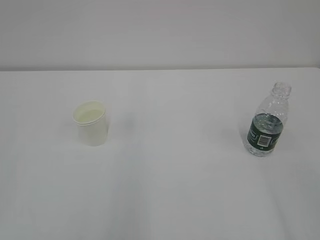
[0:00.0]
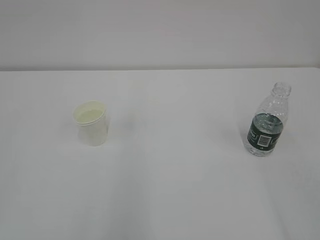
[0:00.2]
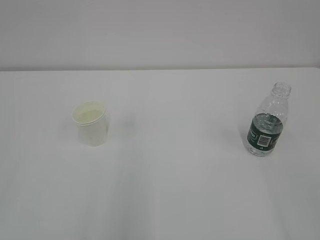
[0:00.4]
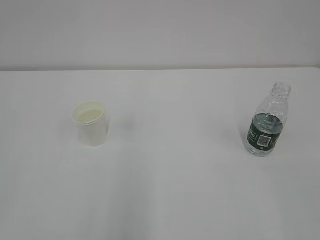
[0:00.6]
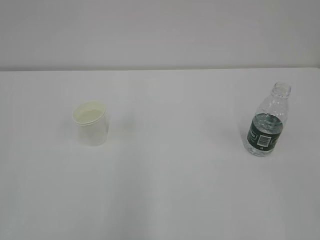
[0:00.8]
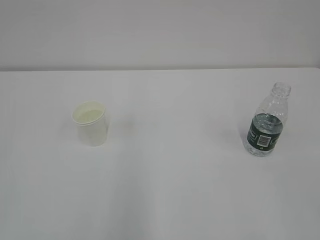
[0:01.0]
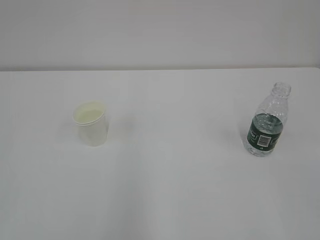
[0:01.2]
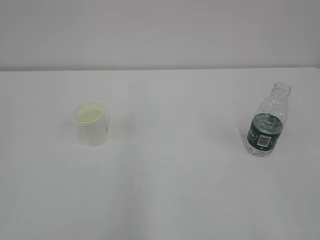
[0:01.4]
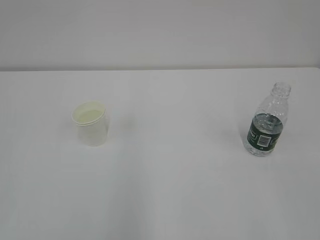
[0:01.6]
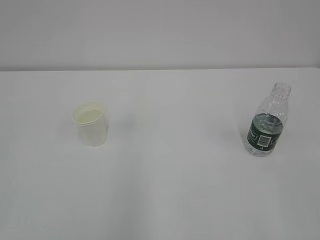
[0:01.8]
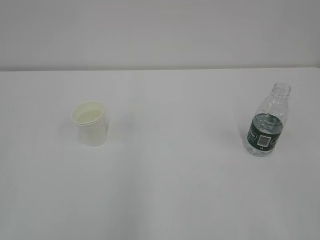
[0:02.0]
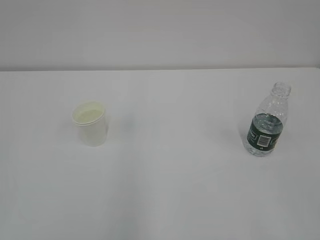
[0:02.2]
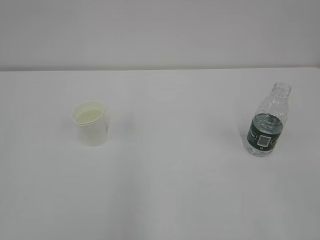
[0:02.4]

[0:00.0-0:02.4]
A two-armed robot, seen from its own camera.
0:01.2 to 0:02.4: Both grippers stay about where they are.
